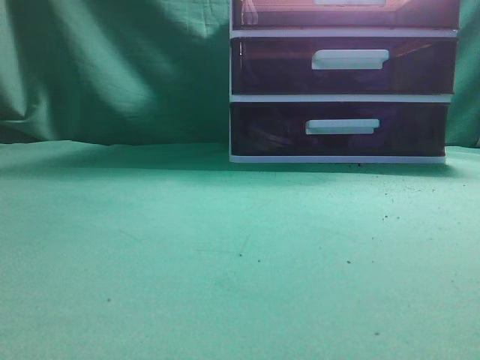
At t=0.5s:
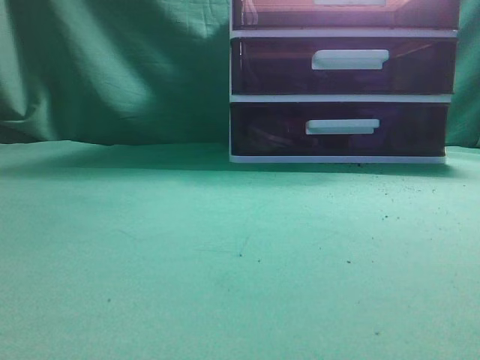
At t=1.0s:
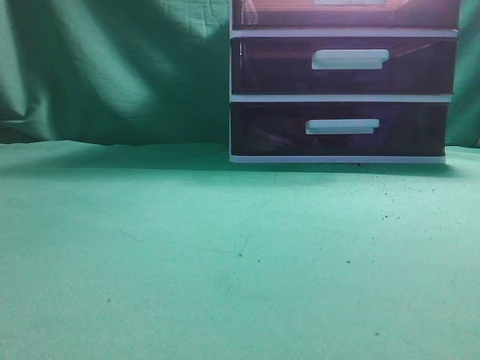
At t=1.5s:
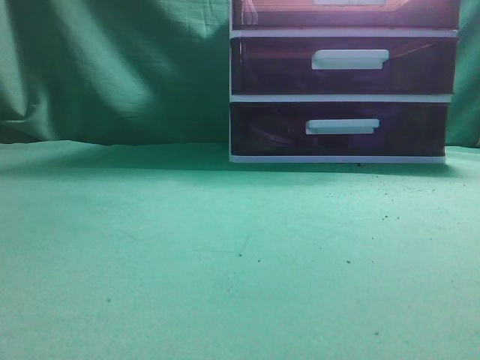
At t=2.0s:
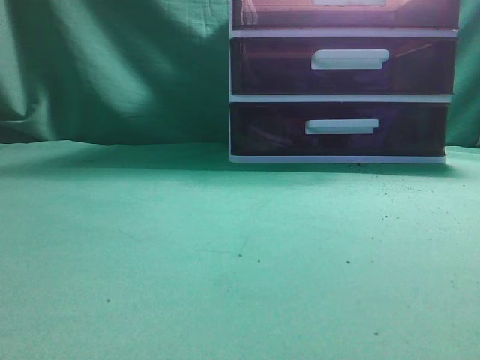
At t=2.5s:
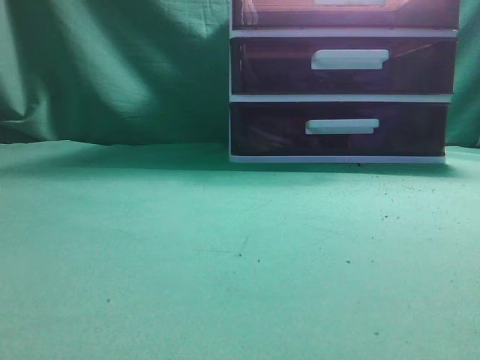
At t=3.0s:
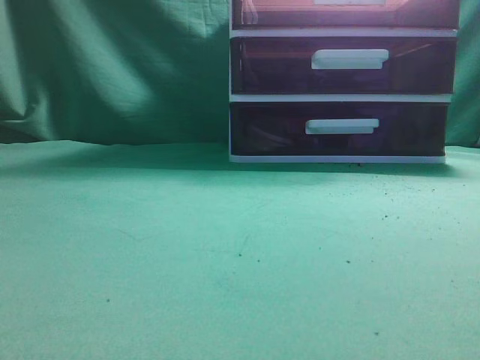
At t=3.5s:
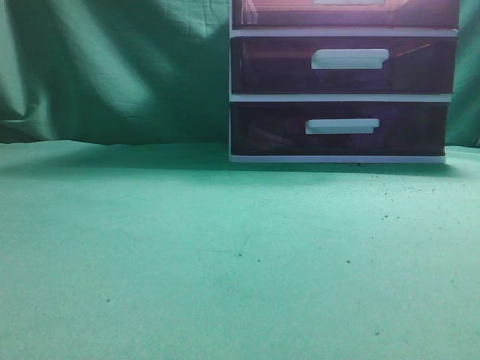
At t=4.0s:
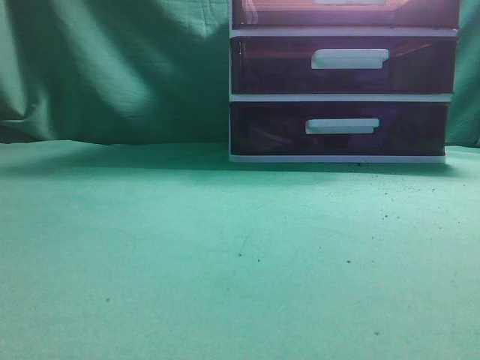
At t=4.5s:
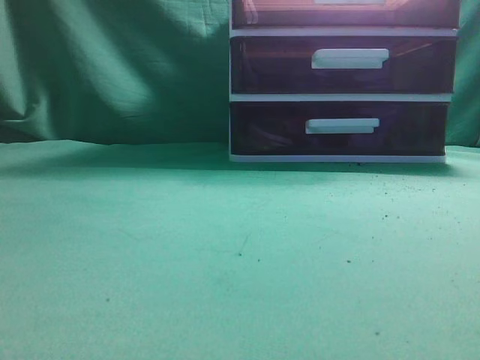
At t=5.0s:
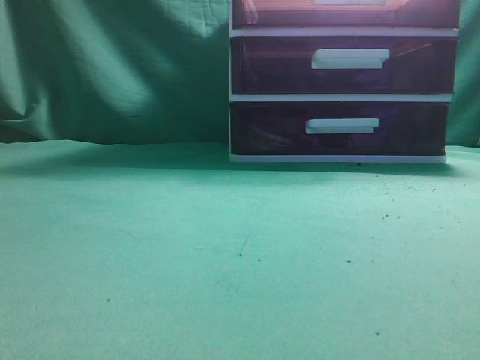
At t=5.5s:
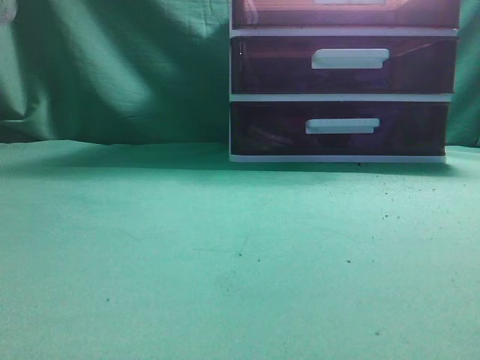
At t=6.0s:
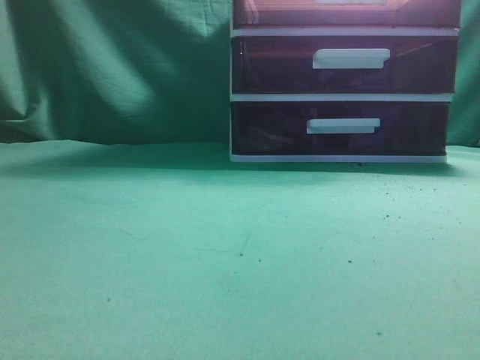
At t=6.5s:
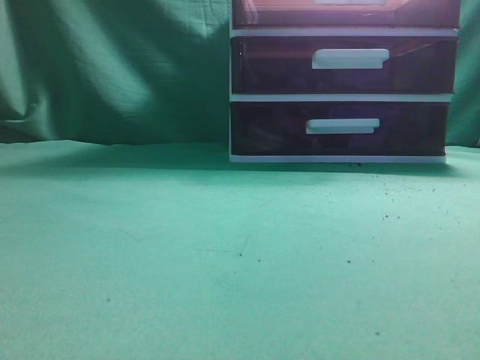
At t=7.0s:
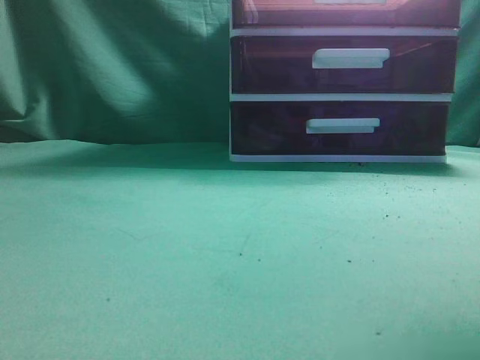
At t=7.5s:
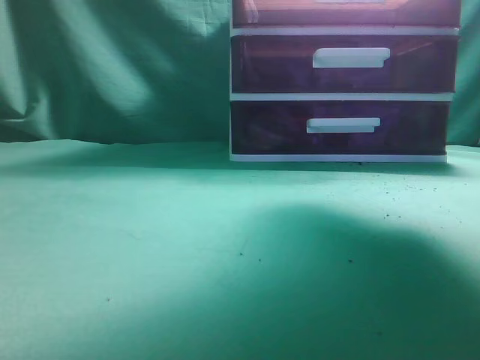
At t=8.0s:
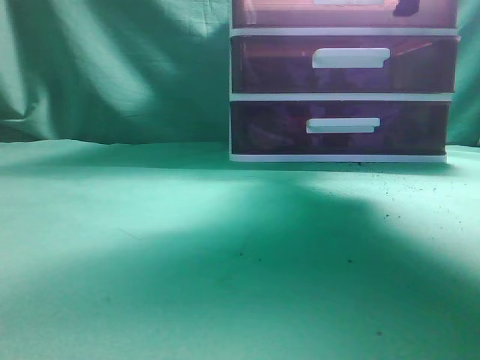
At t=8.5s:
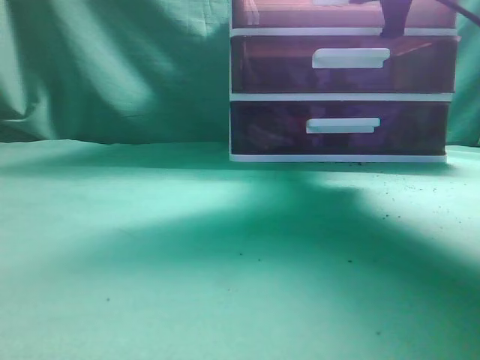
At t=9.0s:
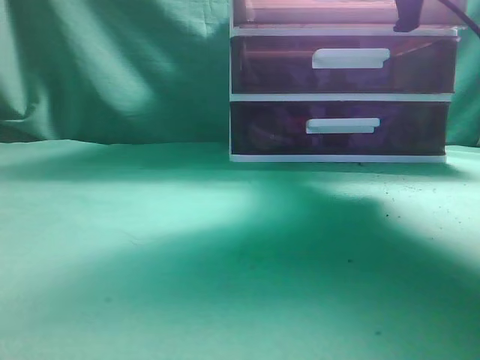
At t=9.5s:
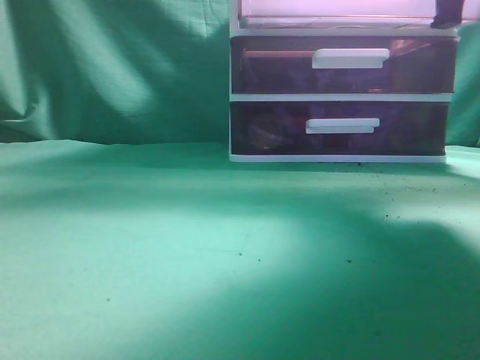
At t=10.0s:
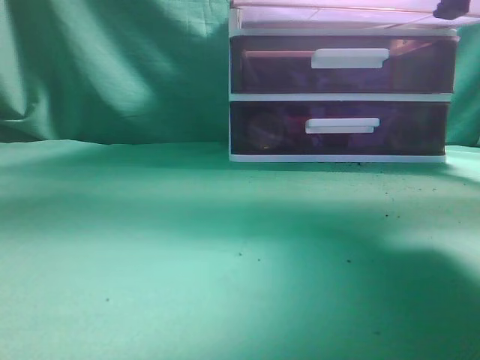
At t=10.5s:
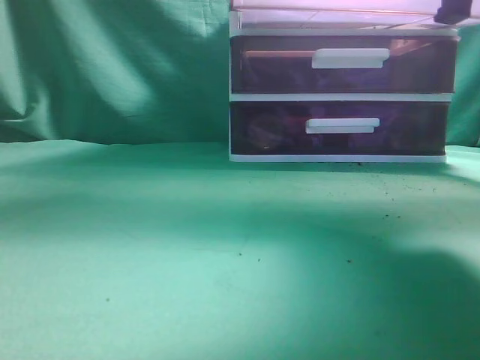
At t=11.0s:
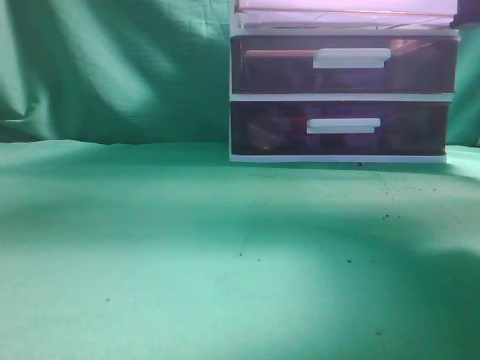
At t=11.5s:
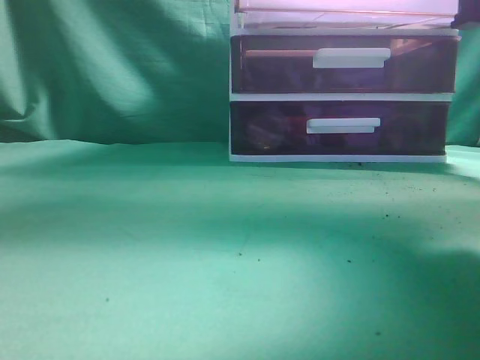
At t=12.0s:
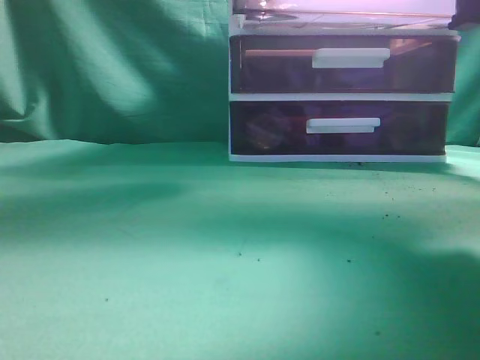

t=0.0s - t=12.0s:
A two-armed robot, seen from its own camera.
Task of the whole recording: place the water bottle into the drawer.
Step, t=0.0s - t=9.5s: Open the drawer.
t=6.0s - t=8.0s: The right gripper is displaced forward by some 35 cm, and opens.
t=8.0s - t=10.0s: The right gripper is displaced backward by approximately 10 cm, and closes its fingers.
t=10.0s - t=12.0s: The left gripper moves forward and to the right, approximately 20 cm.

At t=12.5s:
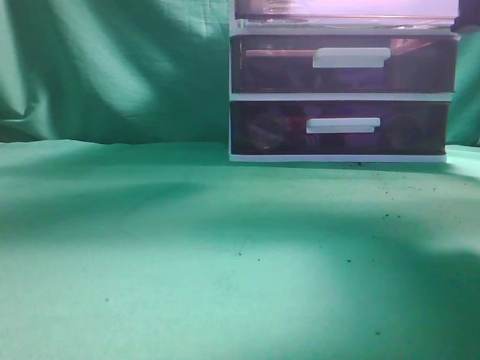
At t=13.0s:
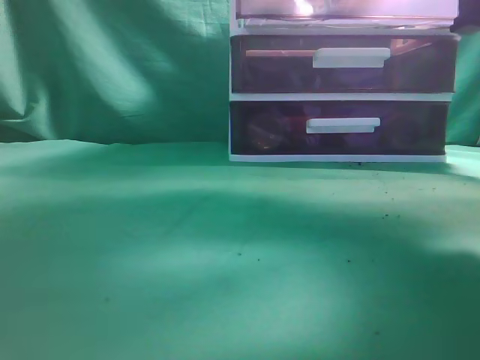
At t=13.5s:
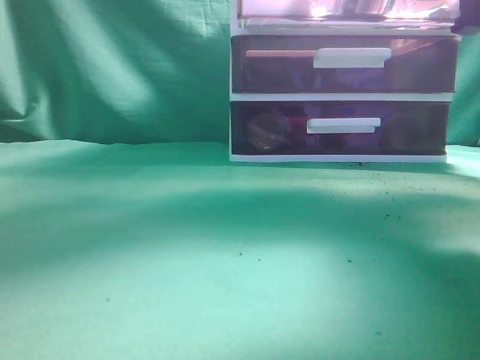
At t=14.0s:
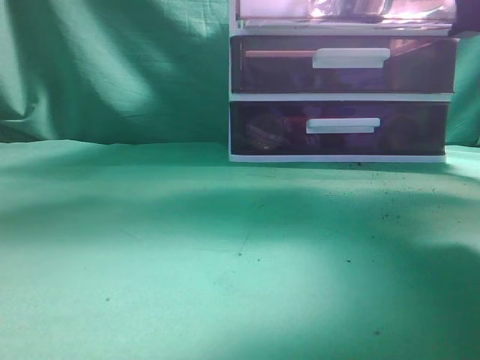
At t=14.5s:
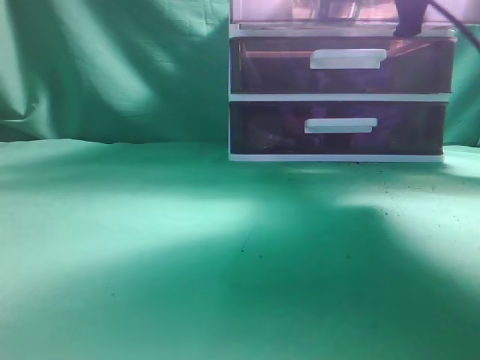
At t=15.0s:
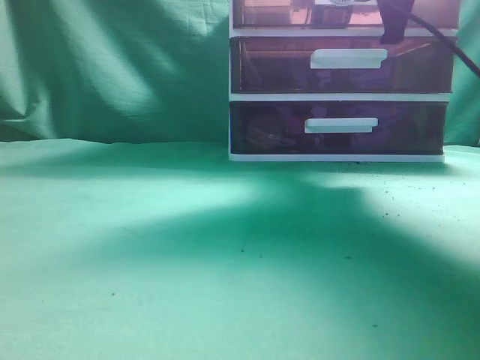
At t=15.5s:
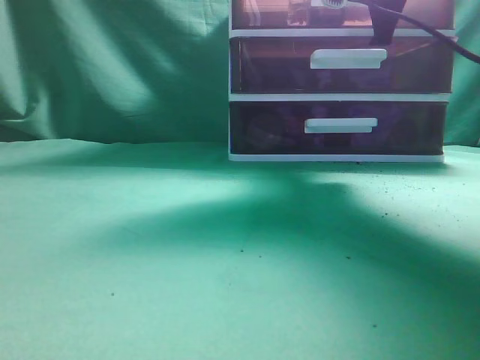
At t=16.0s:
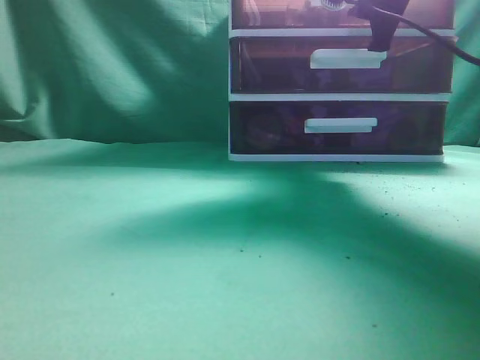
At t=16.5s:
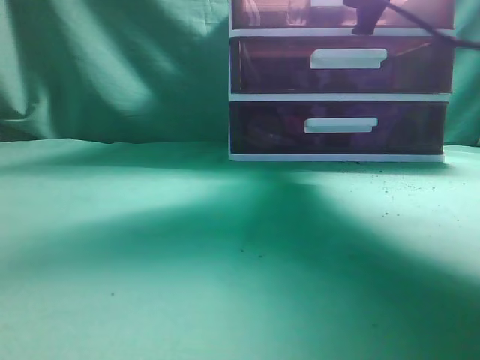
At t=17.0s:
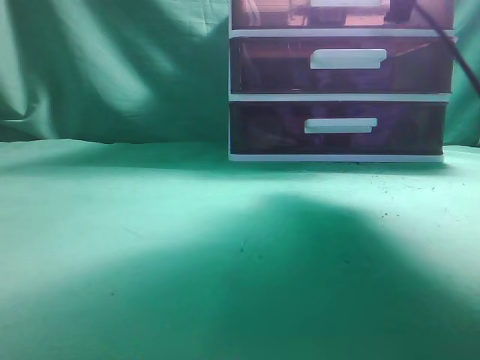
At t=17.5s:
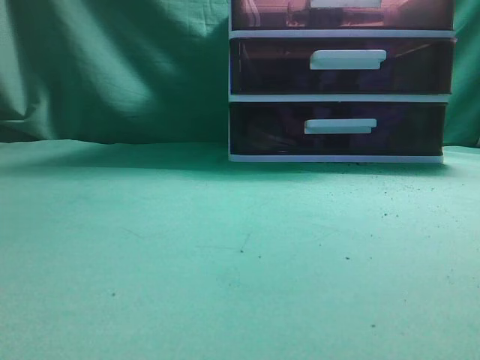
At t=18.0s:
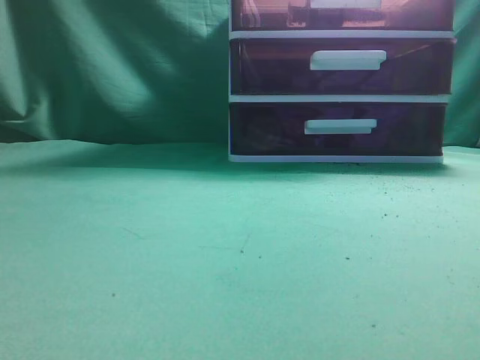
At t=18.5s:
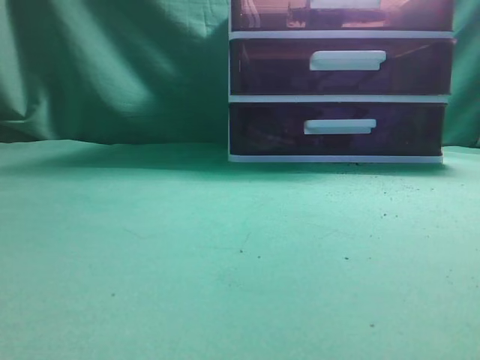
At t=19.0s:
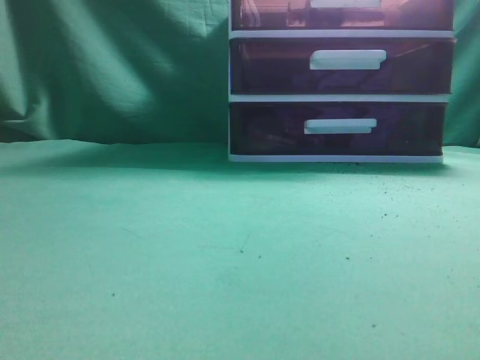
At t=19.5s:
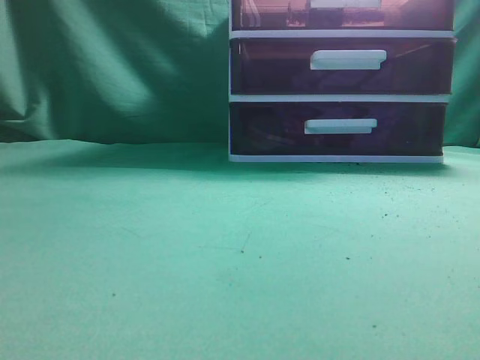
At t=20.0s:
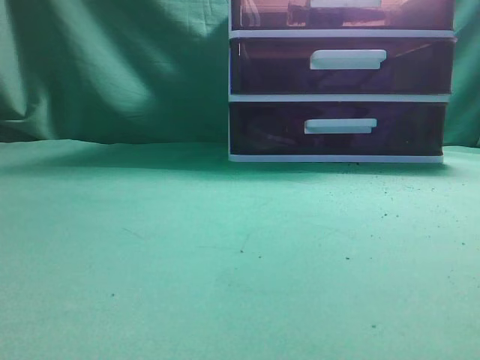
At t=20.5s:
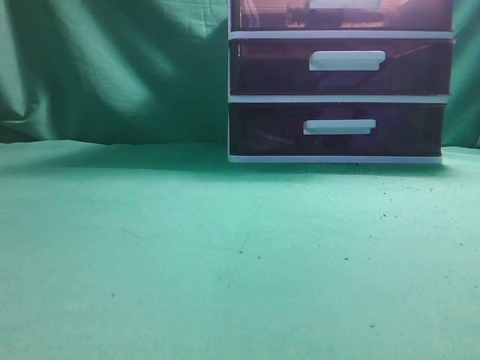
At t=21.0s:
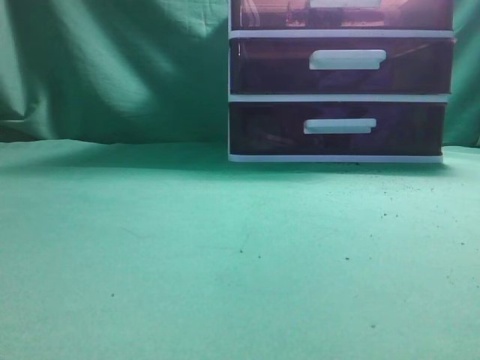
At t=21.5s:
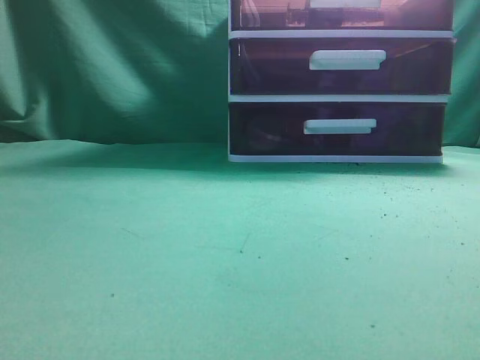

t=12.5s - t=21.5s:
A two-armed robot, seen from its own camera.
Task of the whole recording: place the water bottle into the drawer.
Step, t=14.0s - t=16.5s: Close the drawer.
t=12.5s - t=14.5s: The left gripper travels upward, backward and to the left by roughly 25 cm, and closes its fingers, while the right gripper is displaced forward by approximately 10 cm.
t=14.5s - t=17.0s: The left gripper moves roughly 5 cm, while the right gripper opens.
t=17.0s - t=19.5s: The right gripper is displaced backward and upward by roughly 25 cm, and closes up. Meanwhile the left gripper goes some 35 cm downward and backward.
